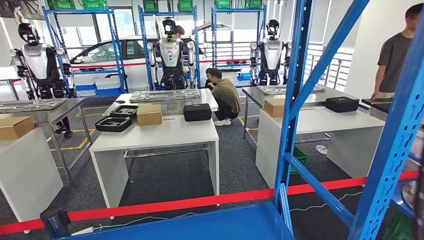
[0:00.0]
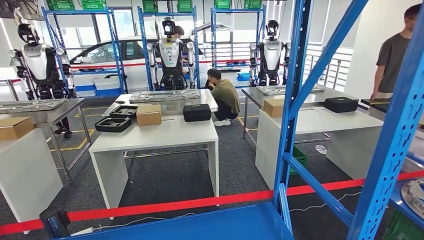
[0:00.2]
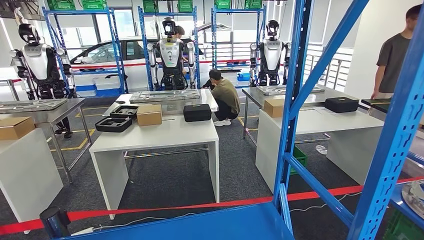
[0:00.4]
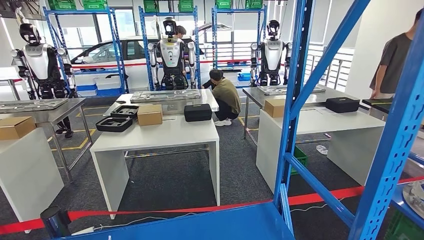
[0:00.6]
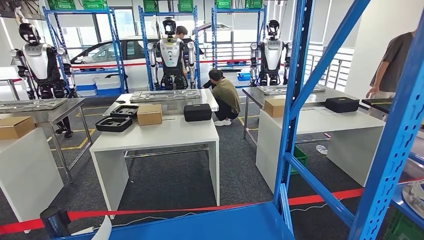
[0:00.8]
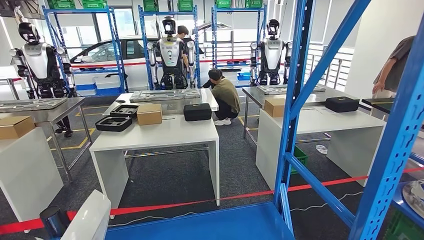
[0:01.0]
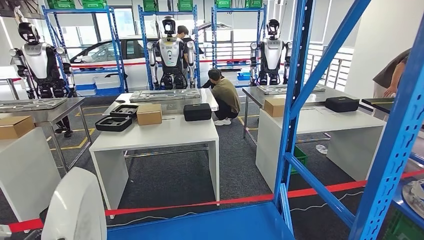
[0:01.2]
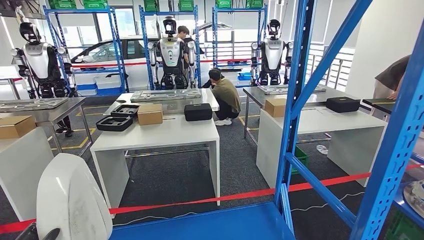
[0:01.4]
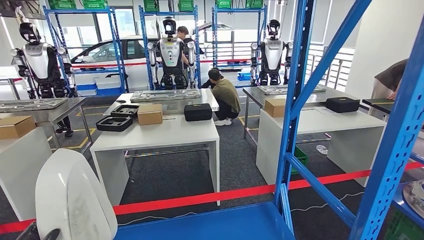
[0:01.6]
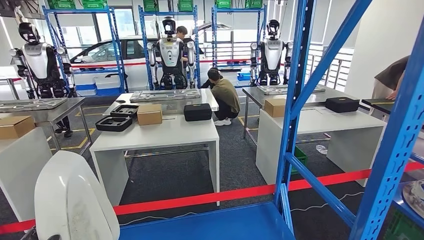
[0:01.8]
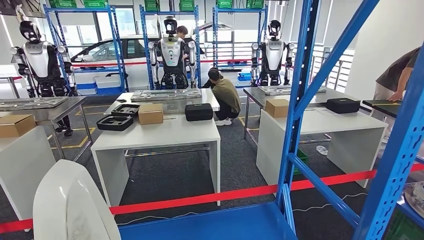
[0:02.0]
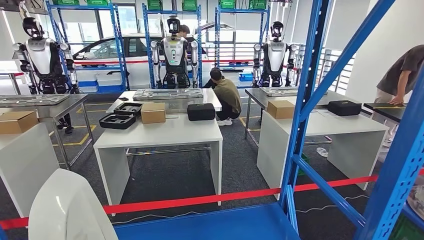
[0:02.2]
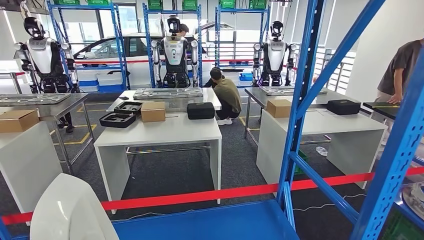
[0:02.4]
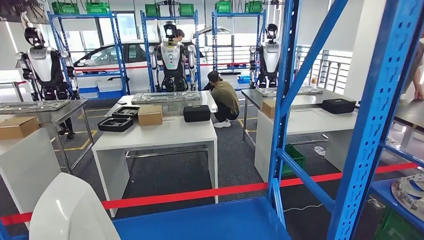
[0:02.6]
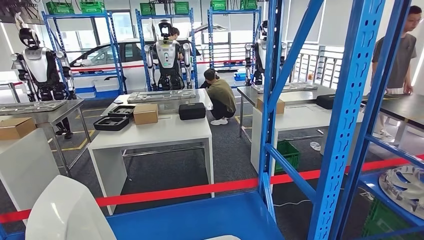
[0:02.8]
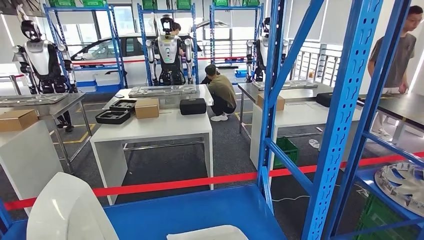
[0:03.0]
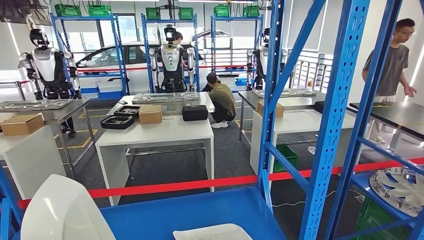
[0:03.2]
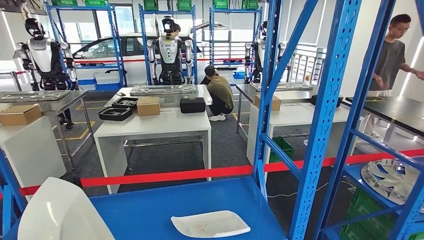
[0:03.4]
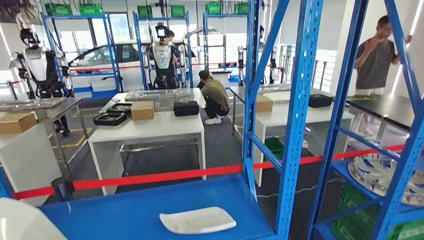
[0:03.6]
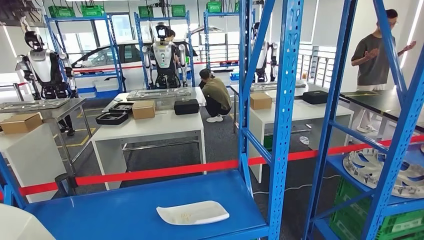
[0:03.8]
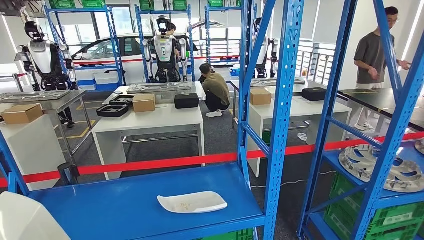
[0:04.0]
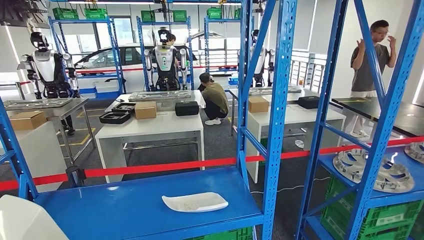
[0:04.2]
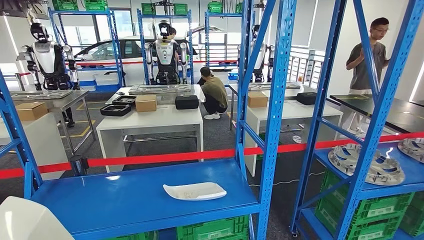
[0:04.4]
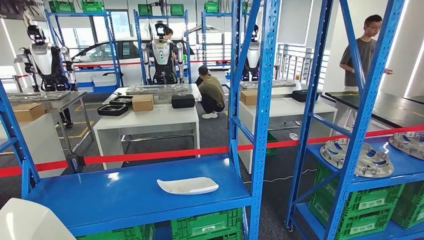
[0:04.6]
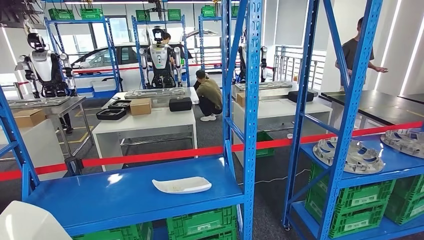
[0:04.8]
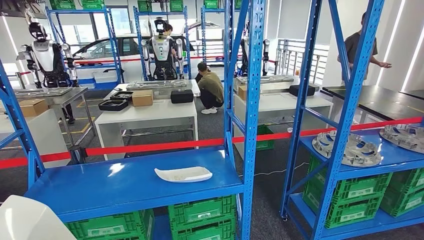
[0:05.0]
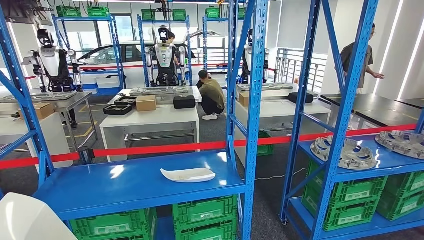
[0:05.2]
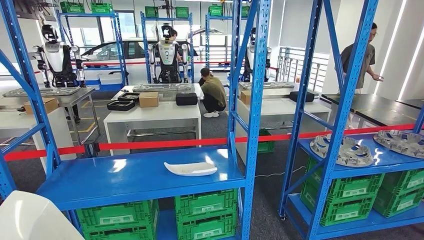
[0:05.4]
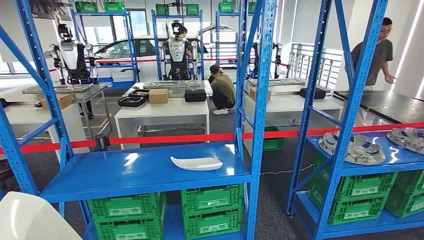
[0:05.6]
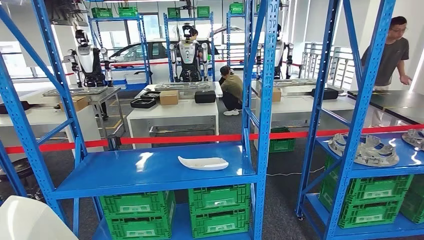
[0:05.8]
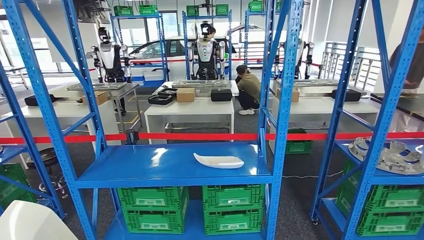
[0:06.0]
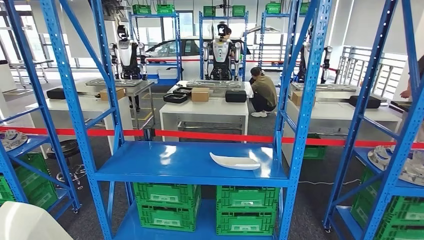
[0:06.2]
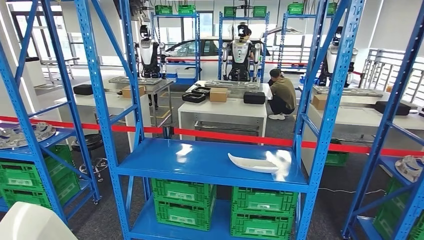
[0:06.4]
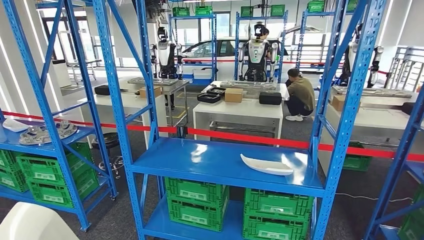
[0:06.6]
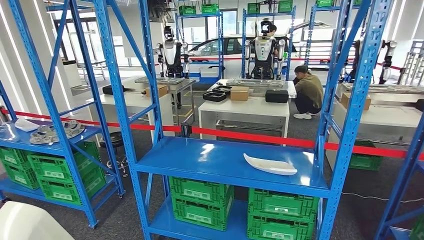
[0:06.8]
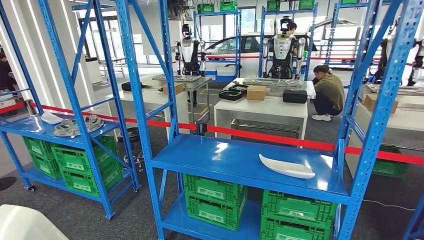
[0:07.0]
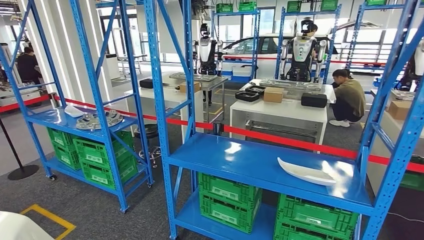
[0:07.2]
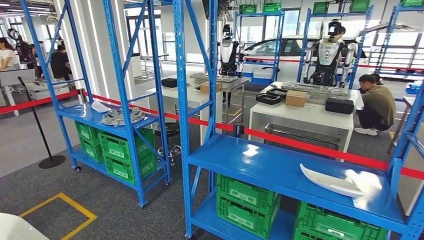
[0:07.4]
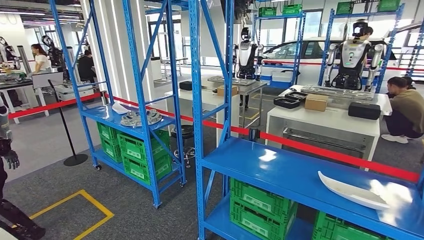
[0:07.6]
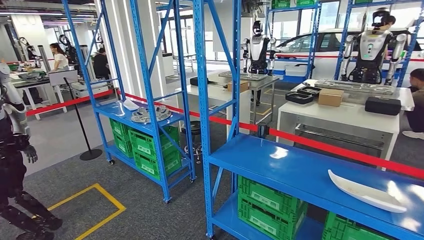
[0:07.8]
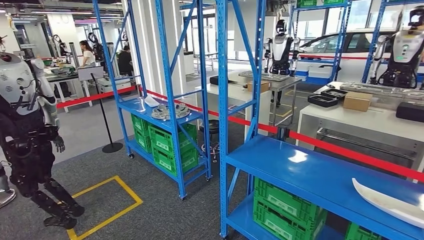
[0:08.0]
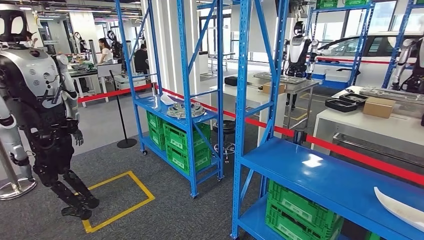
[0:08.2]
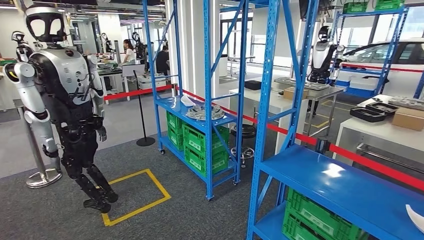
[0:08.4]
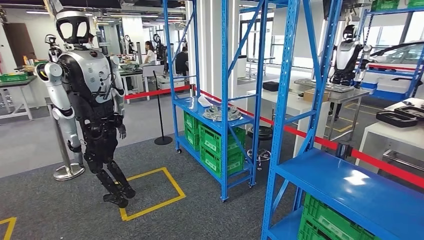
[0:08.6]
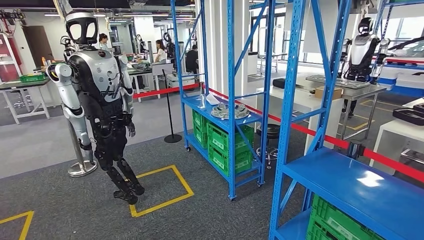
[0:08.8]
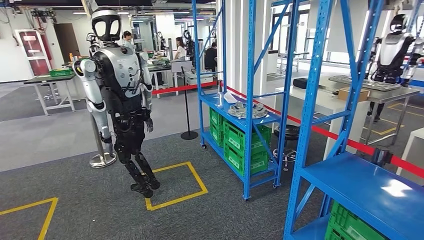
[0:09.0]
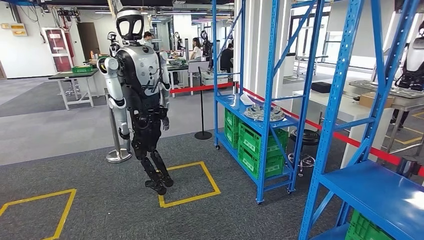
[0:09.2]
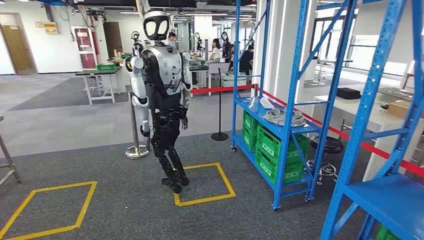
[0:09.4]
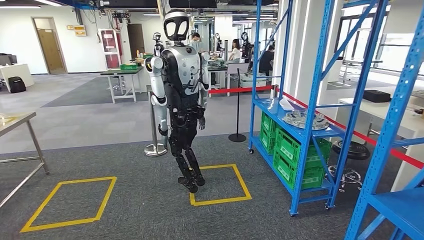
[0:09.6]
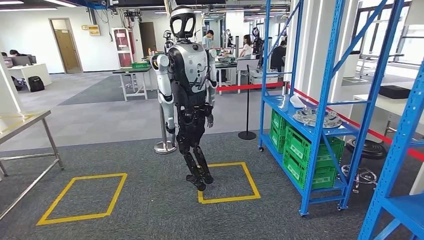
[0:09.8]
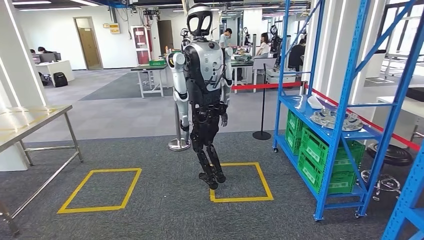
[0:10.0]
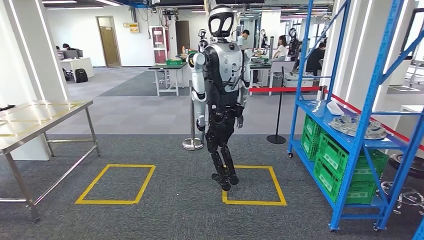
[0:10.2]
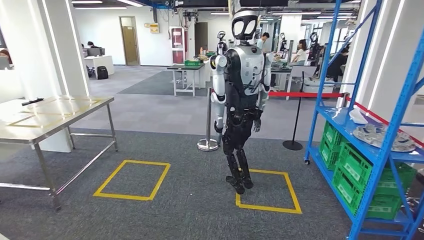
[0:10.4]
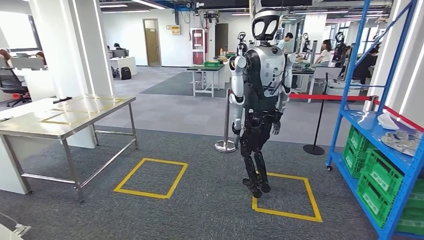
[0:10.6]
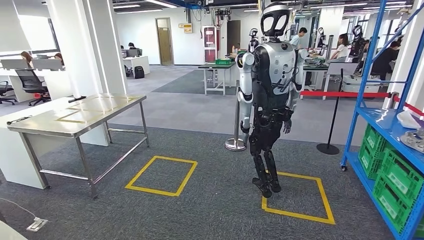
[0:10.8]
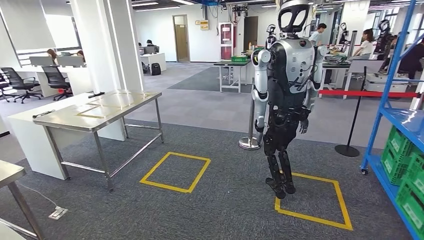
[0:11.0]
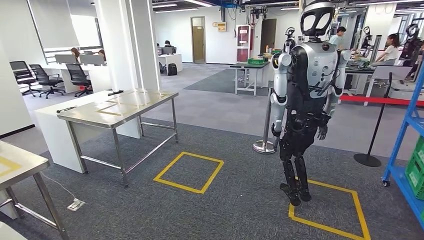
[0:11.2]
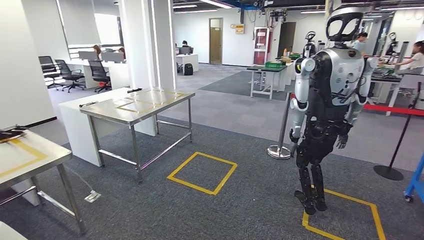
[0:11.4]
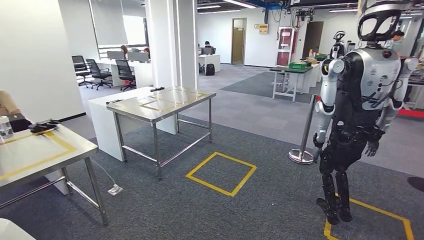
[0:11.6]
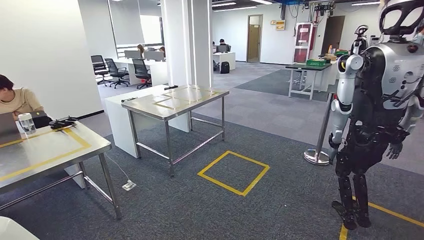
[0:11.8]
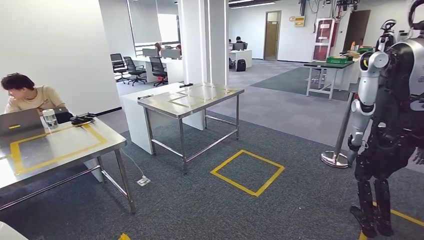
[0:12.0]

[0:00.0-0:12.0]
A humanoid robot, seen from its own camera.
Step, 0:00.0 to 0:02.0: Pick up the small component from the shelf.
0:00.0 to 0:01.6: The left hand goes roughly 10 cm to the right and upward.

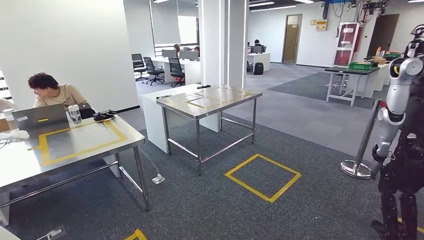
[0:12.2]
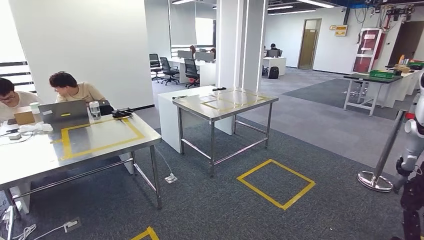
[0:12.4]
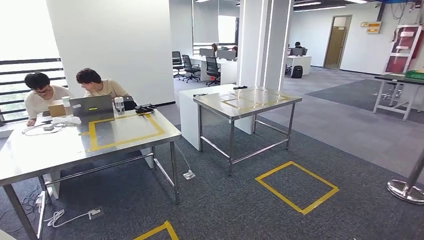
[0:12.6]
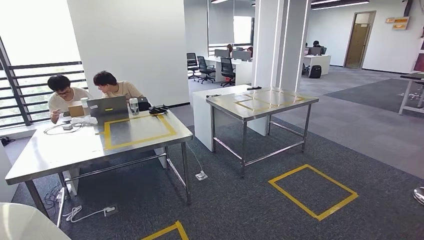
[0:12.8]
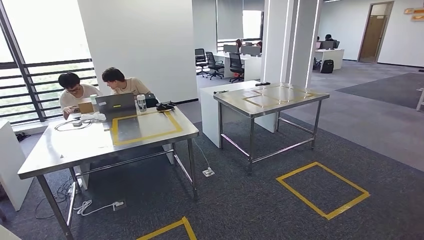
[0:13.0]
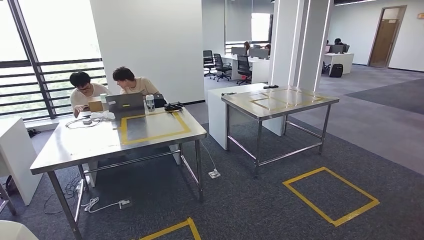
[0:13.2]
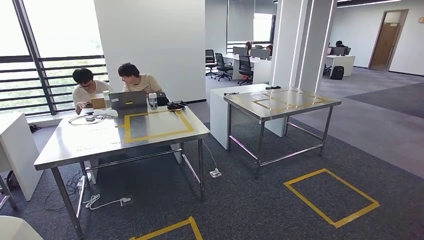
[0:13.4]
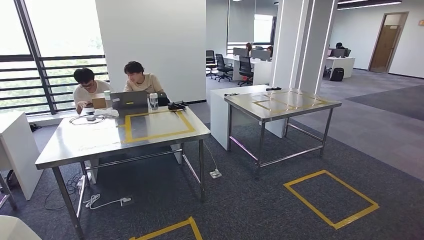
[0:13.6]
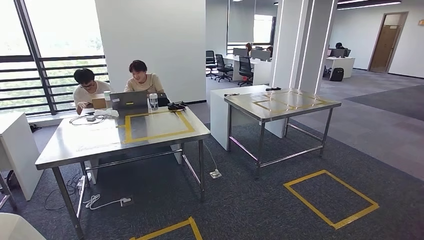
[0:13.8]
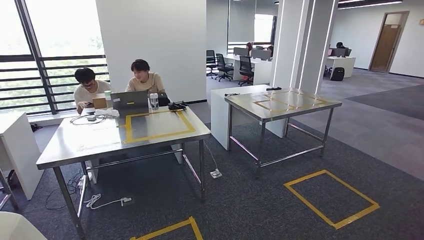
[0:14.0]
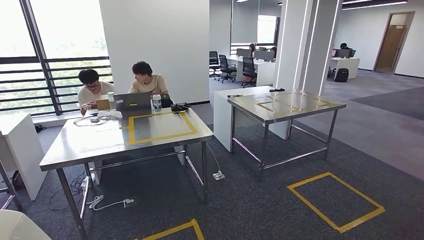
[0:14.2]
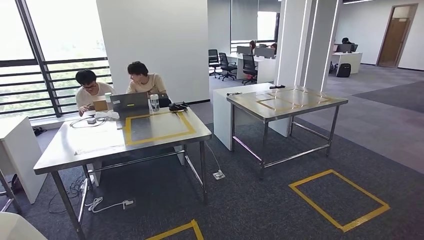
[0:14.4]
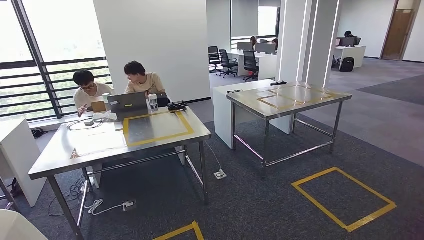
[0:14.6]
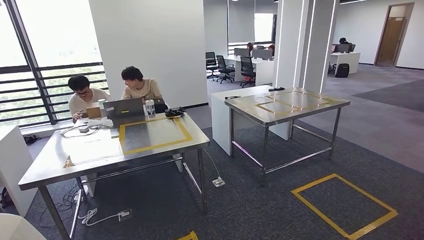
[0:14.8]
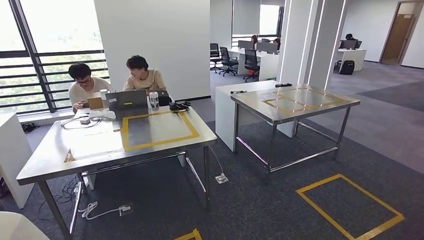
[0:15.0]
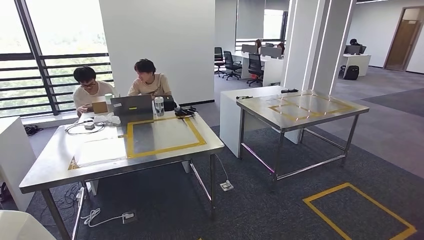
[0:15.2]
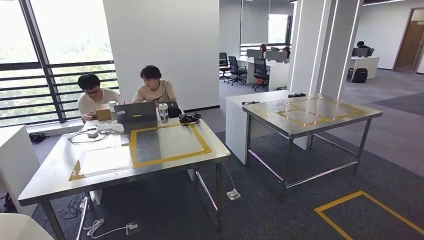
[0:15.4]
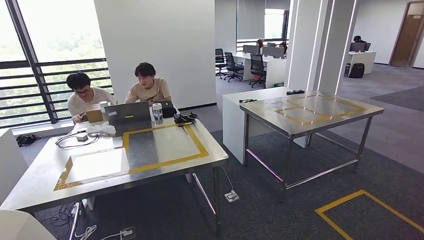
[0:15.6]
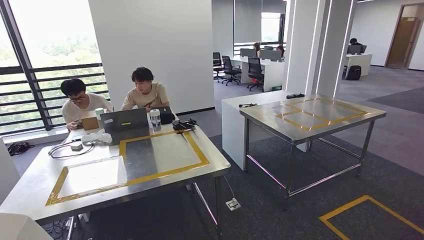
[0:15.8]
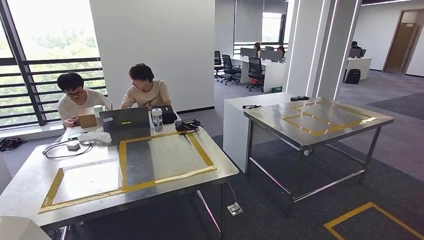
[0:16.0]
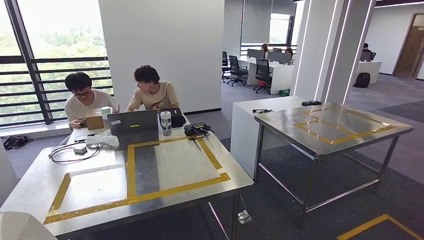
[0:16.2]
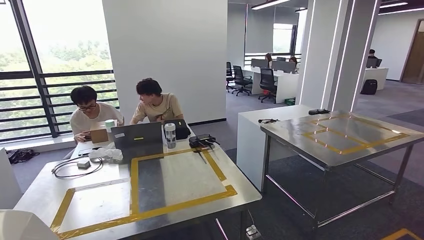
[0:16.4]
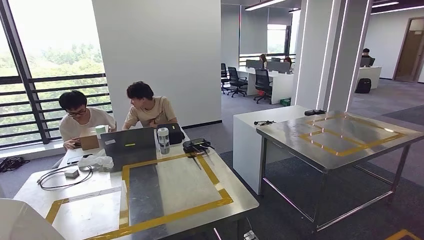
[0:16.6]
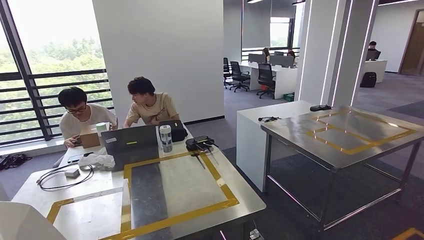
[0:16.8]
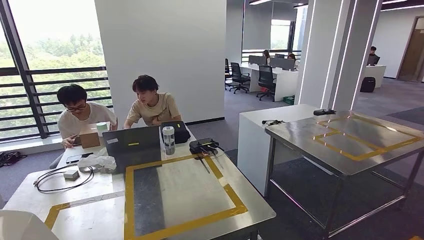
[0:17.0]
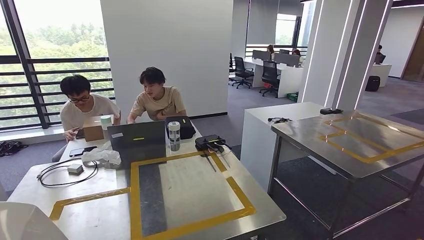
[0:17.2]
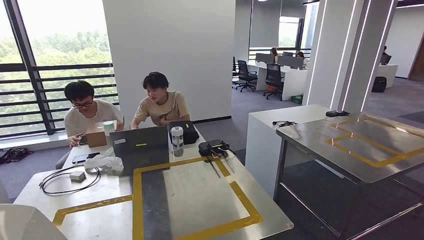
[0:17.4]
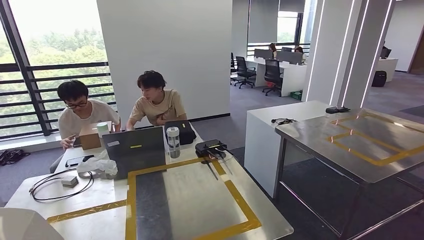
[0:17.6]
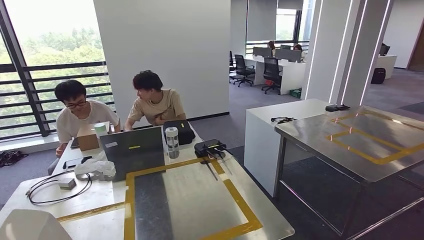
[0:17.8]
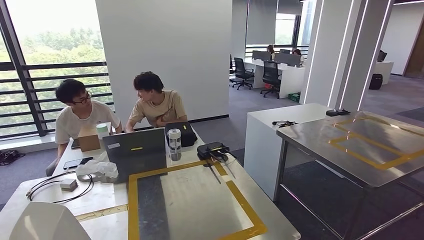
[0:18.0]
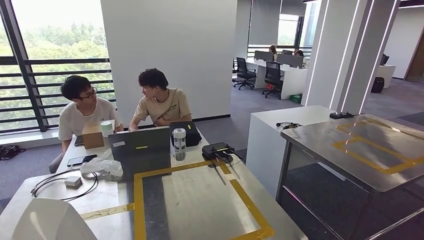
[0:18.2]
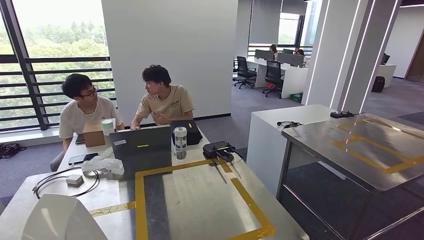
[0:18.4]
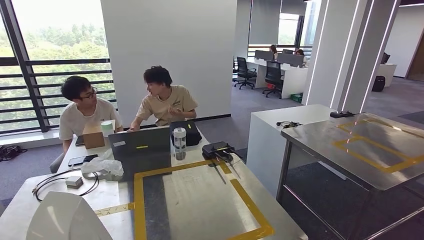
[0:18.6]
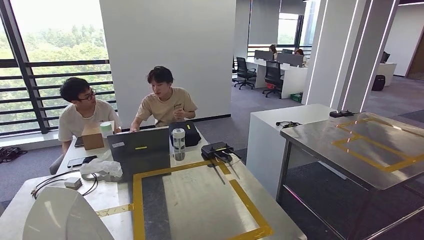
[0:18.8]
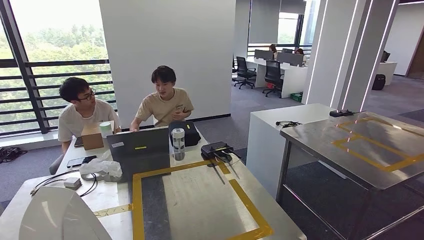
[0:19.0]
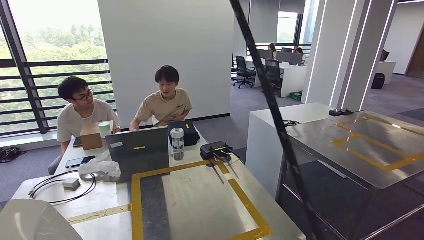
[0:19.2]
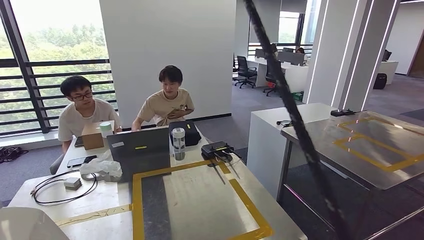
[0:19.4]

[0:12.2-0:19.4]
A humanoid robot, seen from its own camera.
Step, 0:12.2 to 0:14.4: Move the small component to the workbench.
